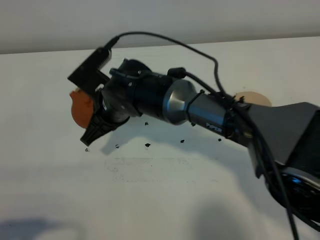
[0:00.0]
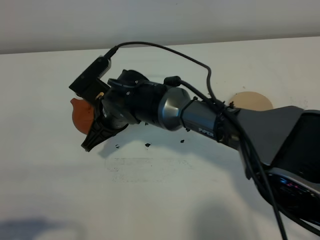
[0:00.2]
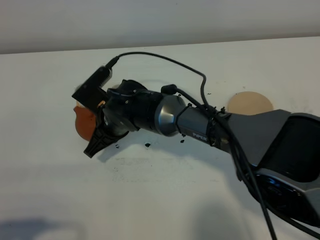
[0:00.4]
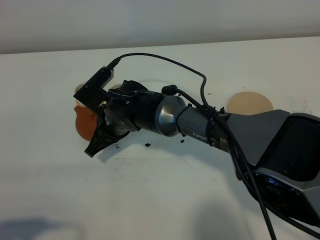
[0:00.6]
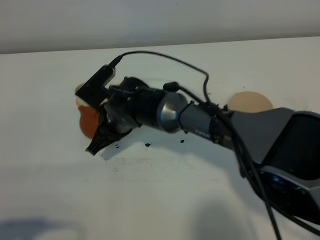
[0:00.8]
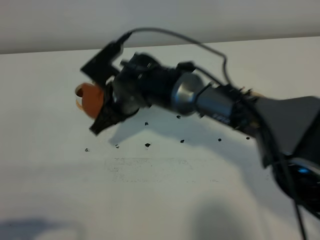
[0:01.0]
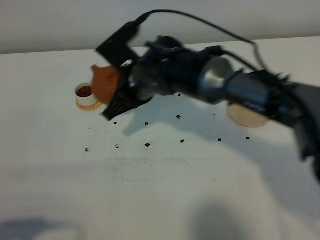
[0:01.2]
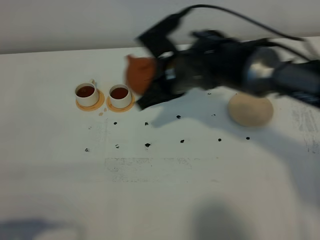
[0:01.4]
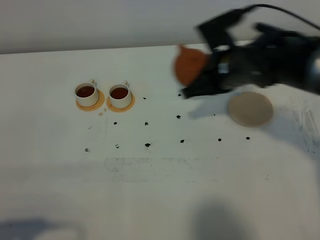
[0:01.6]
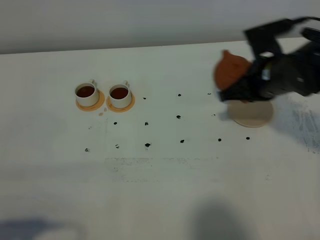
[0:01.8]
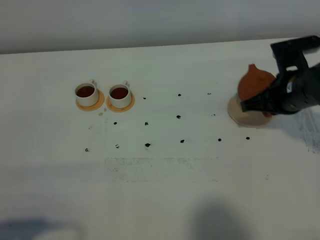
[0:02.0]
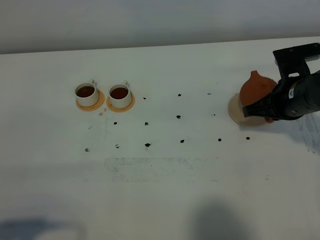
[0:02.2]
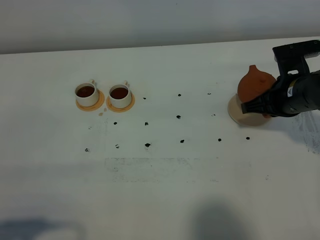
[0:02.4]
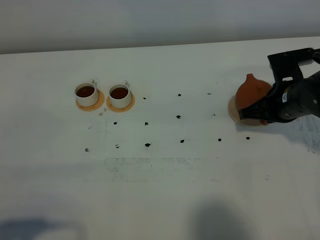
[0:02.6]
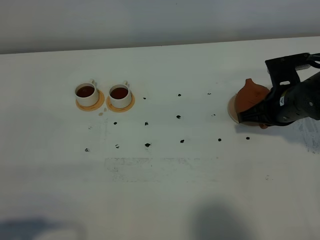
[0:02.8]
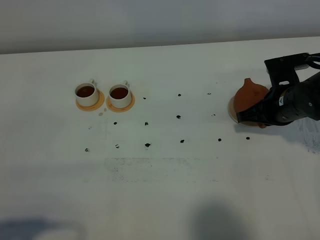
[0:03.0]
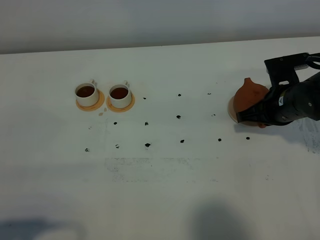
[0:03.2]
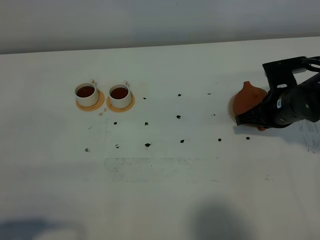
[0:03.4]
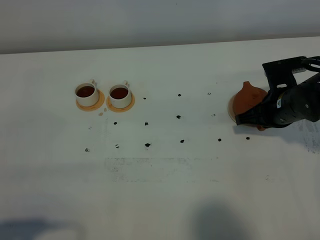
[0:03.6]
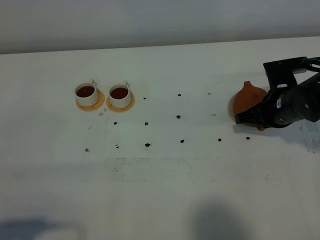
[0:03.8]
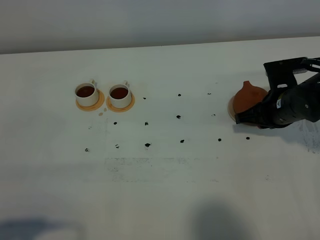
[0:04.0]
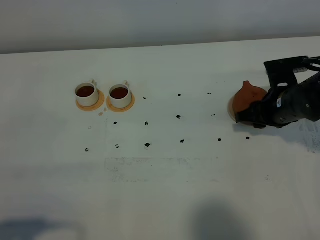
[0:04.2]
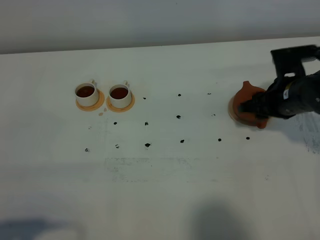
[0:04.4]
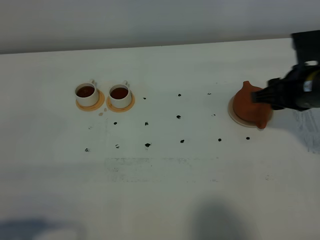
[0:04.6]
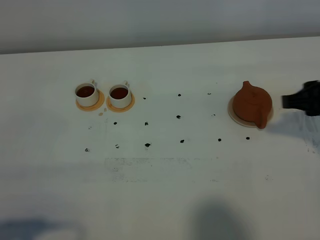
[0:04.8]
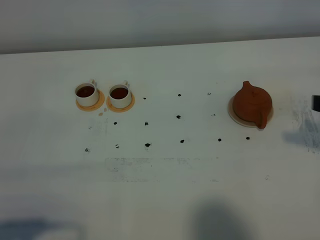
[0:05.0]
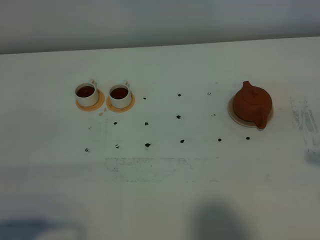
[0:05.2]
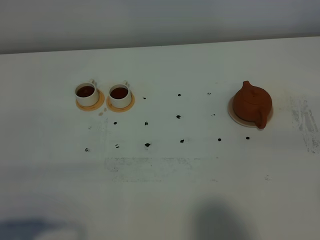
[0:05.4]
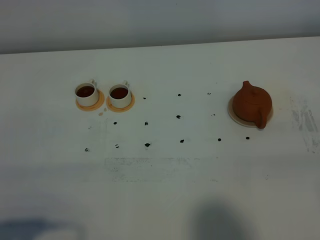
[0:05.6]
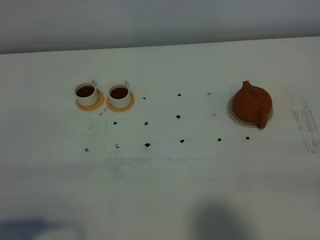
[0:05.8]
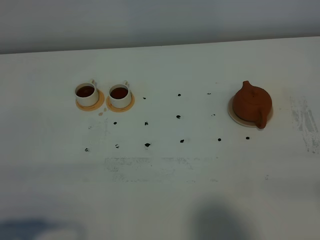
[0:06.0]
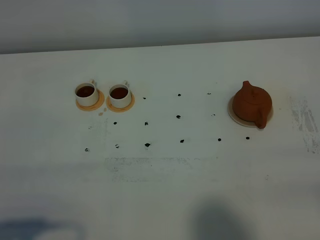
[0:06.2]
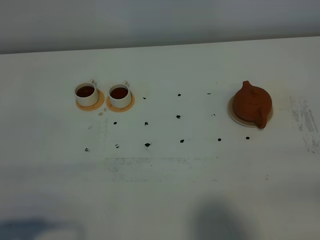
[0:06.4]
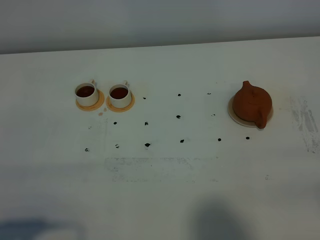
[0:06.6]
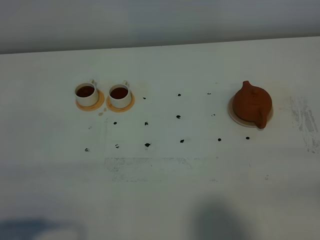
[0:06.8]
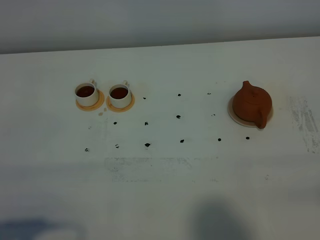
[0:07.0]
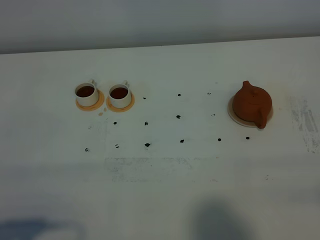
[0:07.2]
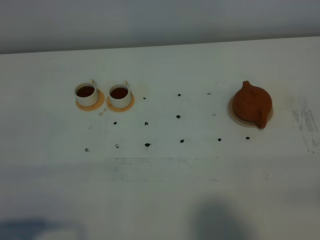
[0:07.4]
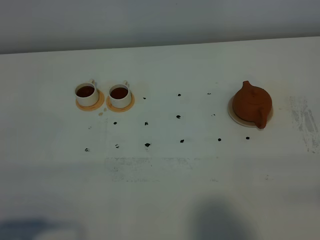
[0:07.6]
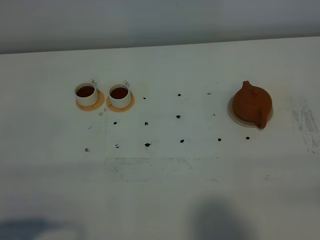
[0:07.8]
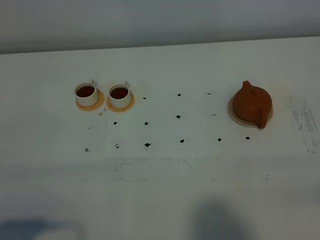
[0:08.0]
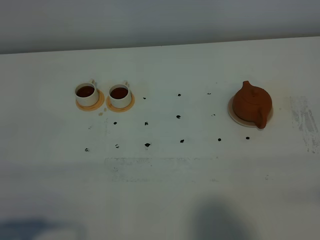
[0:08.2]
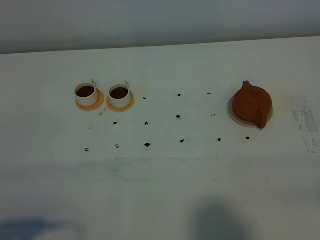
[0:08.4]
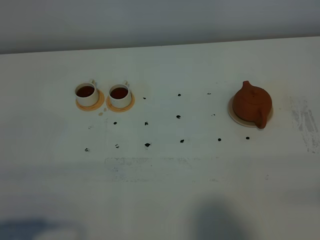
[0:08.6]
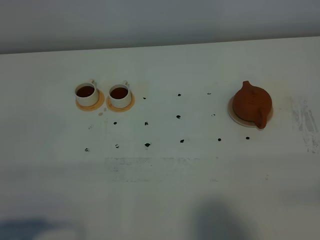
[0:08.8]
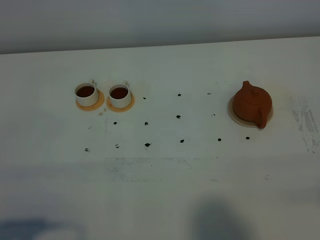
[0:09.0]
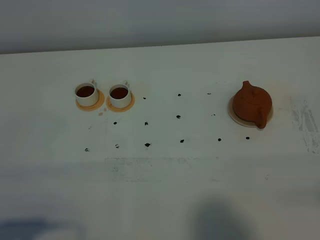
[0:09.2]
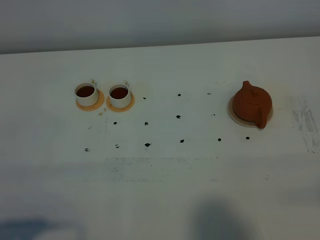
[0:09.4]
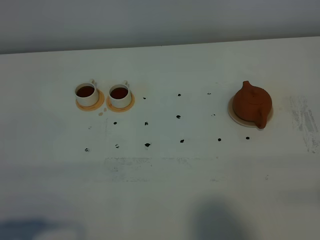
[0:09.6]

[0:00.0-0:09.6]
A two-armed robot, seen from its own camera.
Task of the whole recording: grasp the brown teapot and pour the tea into the two white teacups one by one, put the brown teapot back in its original place.
0:00.0 to 0:01.6: The right gripper travels to the right by roughly 20 cm.
0:01.6 to 0:03.2: The right gripper is displaced to the right and downward by roughly 10 cm.
0:03.2 to 0:04.8: The right gripper travels upward and backward by approximately 15 cm, and opens its fingers.
0:04.8 to 0:06.4: The right gripper heads backward, covering about 25 cm.
0:08.0 to 0:09.6: The two grippers keep their place.

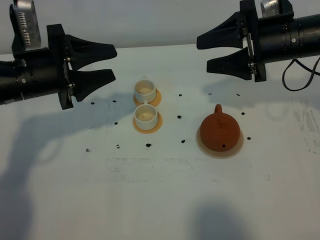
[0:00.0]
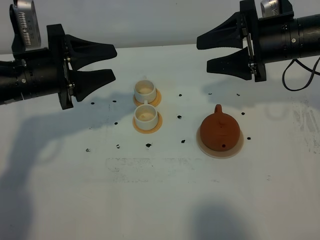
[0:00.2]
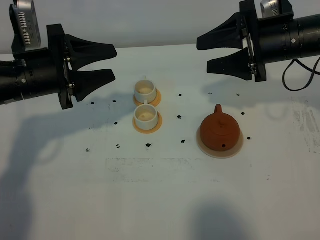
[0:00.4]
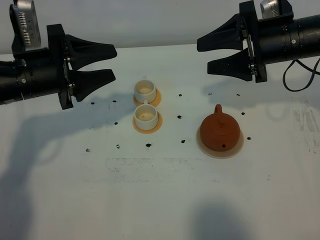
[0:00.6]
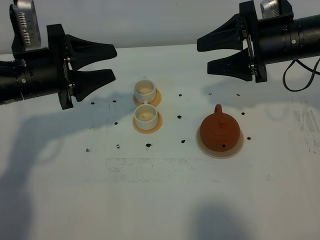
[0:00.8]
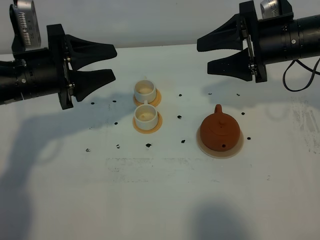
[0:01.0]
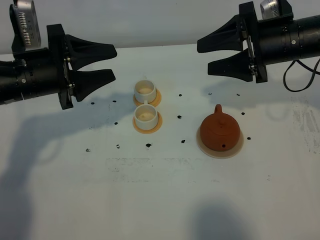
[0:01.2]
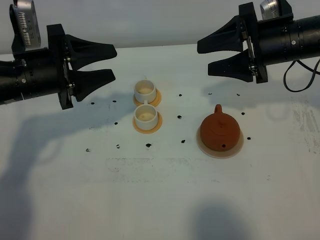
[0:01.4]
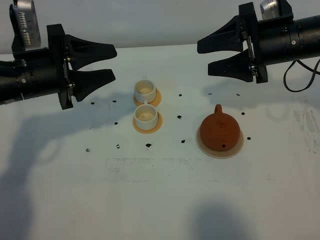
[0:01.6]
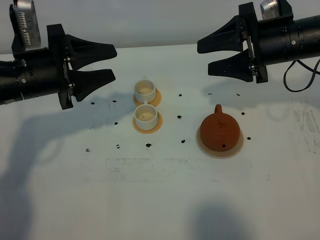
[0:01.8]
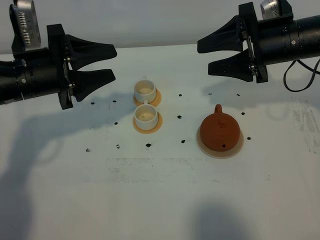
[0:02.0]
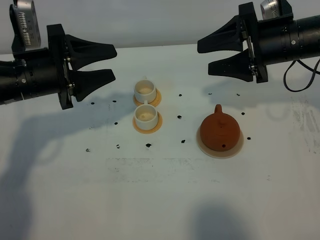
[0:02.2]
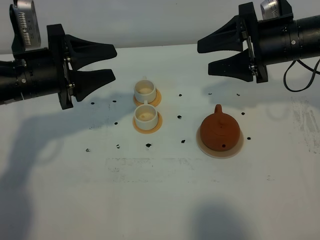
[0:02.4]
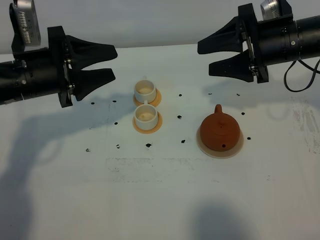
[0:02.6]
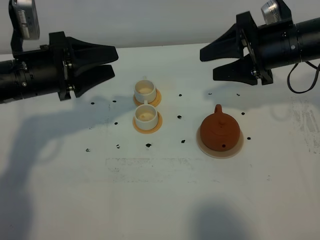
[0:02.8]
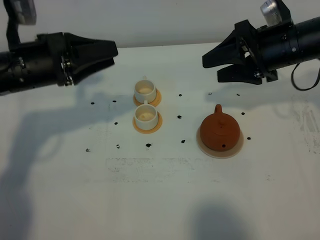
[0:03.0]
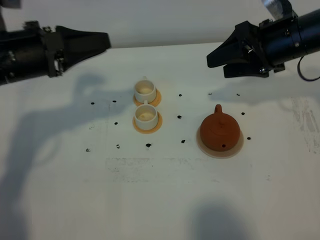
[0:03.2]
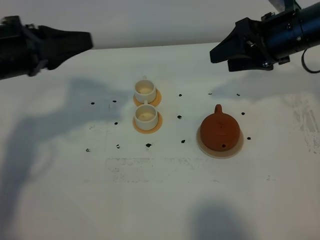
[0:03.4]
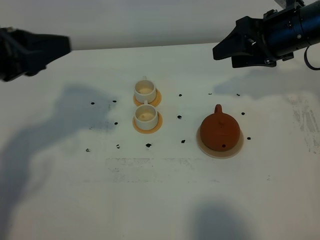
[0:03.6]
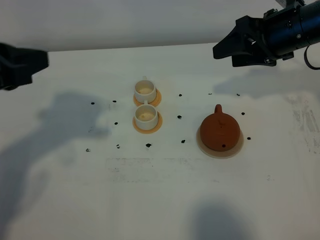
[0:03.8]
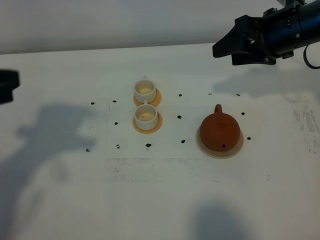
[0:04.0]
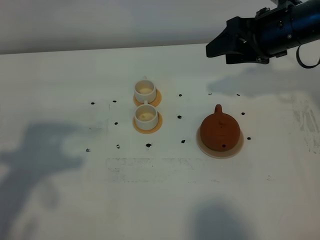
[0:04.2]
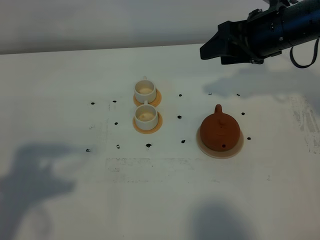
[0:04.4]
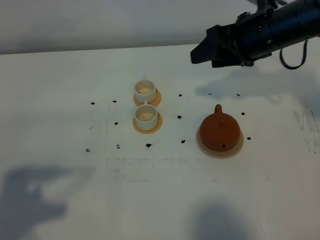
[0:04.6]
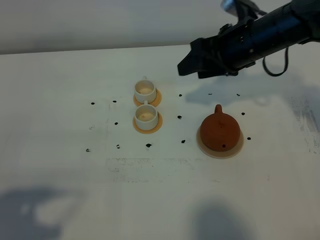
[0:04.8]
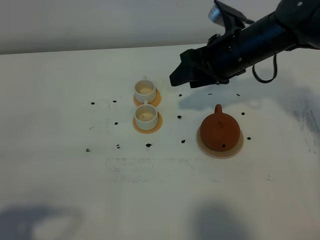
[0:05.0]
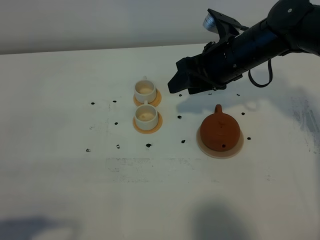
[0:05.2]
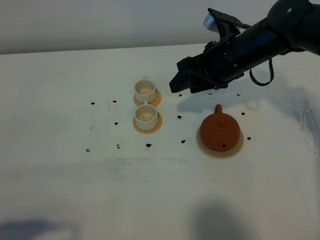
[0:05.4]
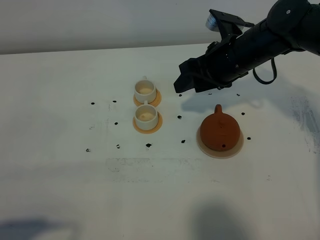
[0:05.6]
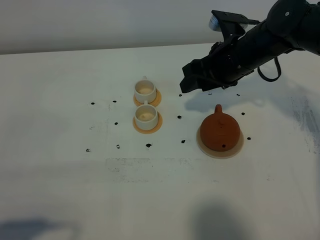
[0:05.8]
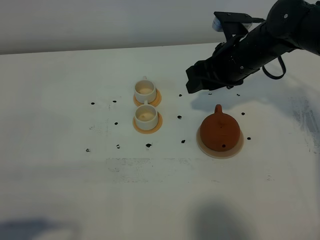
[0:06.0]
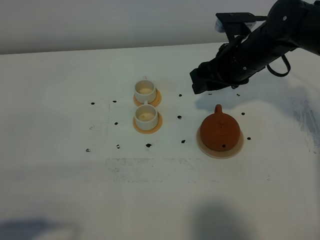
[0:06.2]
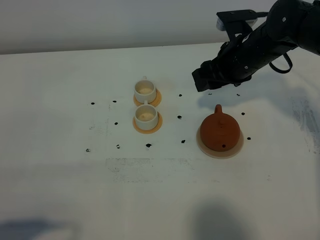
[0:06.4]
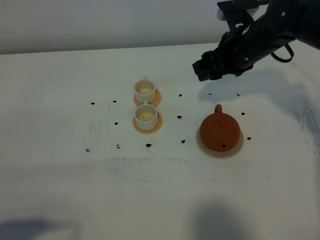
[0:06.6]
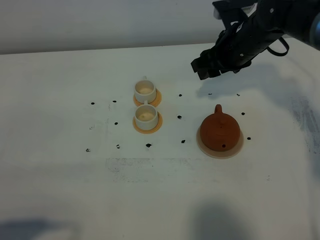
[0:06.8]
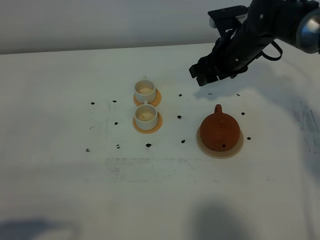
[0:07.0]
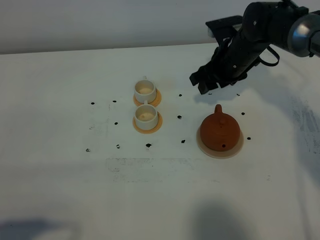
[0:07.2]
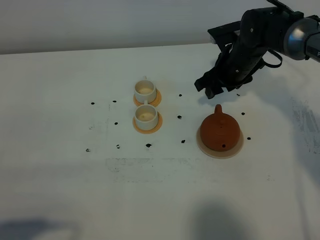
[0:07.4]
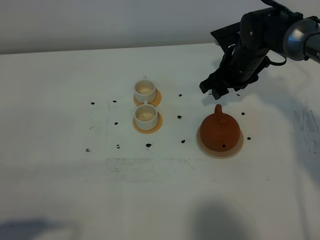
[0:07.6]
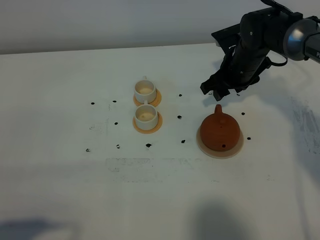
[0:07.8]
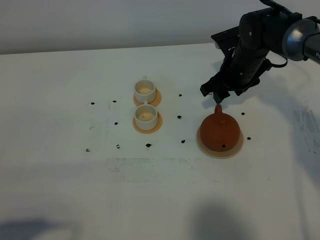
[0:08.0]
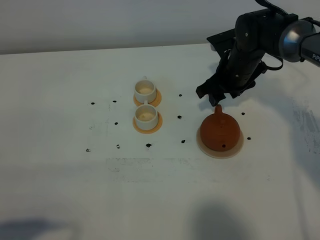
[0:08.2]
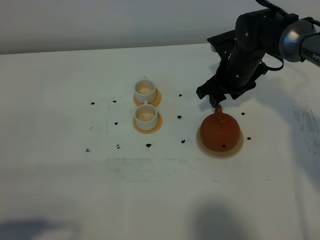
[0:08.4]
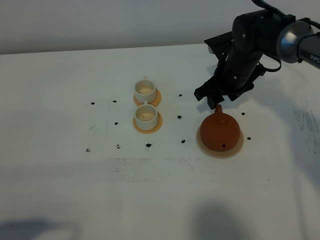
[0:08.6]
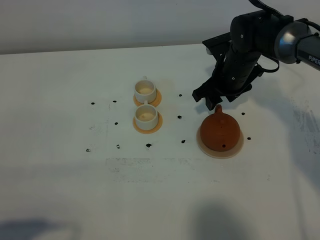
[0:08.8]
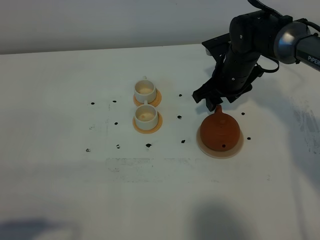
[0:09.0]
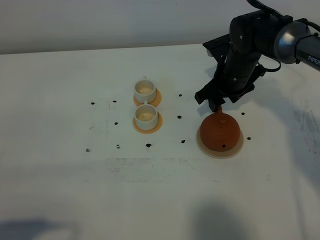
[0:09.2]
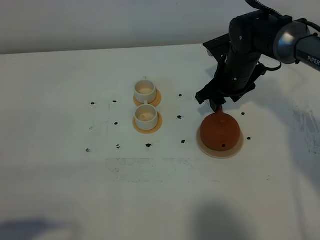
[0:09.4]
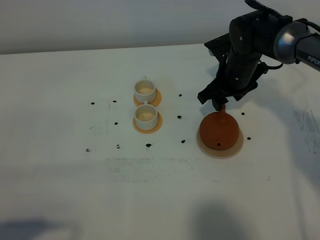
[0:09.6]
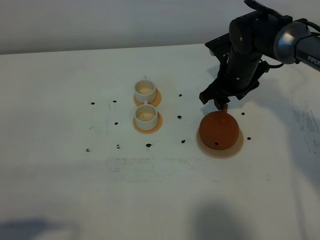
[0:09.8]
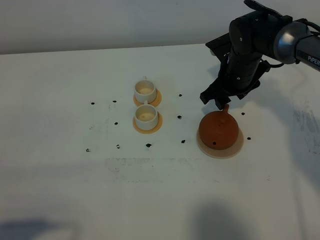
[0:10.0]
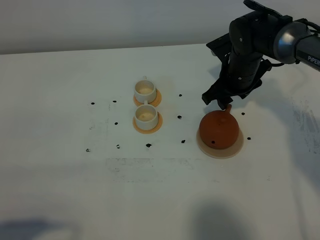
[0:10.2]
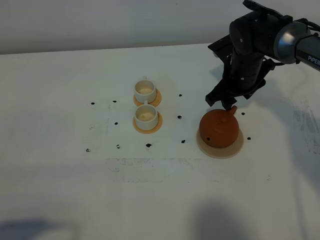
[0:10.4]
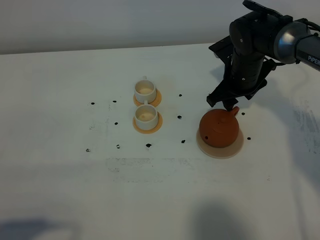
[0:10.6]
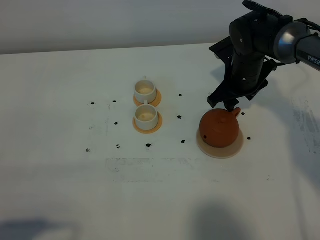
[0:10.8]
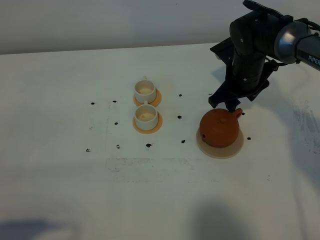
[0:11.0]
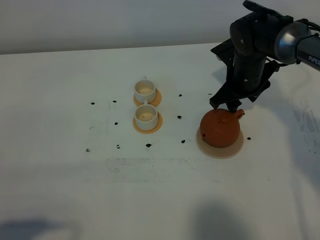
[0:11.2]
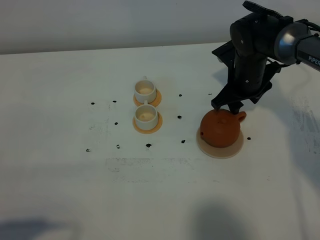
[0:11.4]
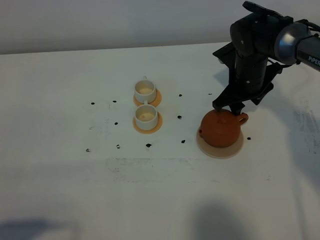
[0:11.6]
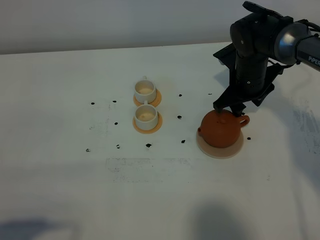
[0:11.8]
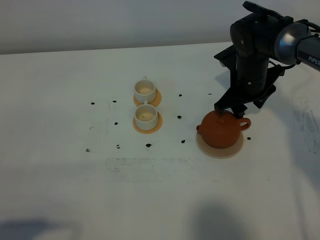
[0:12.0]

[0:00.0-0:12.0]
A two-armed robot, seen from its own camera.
Task of the whole recording: grasp the brown teapot and pour the tea into the two white teacups one by one, put the brown teapot back in its original place.
0:00.0 to 0:01.6: Both grippers stay put.
0:01.6 to 0:03.0: The left gripper closes up.
0:03.0 to 0:04.4: The left gripper goes some 20 cm backward, and closes up.
0:04.4 to 0:06.0: The left gripper moves backward and downward, some 15 cm. The right gripper shifts about 5 cm downward.
0:06.0 to 0:07.6: The right gripper heads downward and forward, covering about 10 cm.
0:07.6 to 0:10.4: The grippers stay close to where they were, moving slightly.
0:10.4 to 0:12.0: The grippers move only a little.

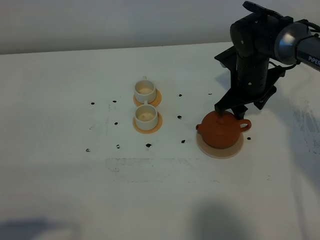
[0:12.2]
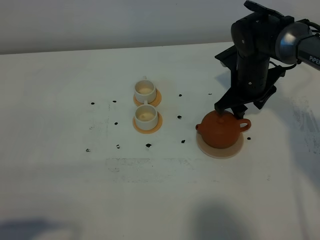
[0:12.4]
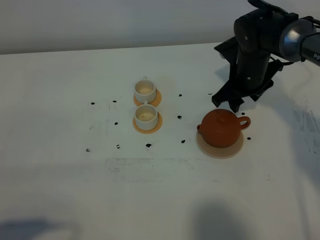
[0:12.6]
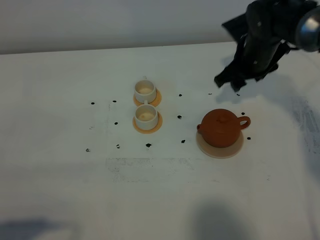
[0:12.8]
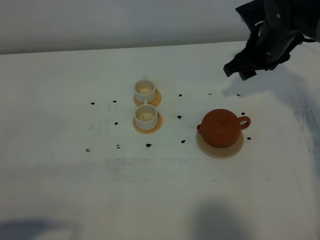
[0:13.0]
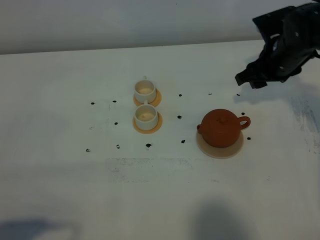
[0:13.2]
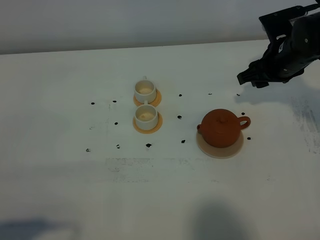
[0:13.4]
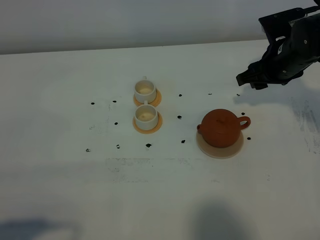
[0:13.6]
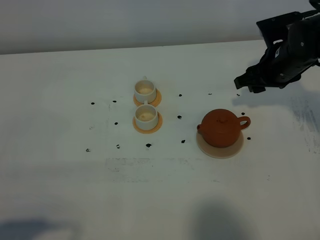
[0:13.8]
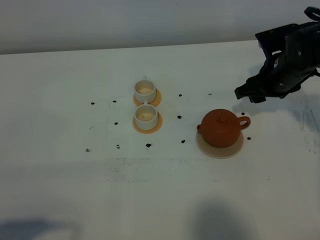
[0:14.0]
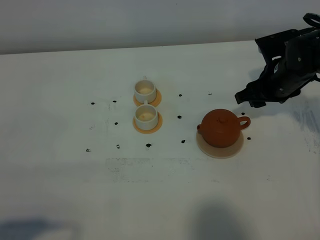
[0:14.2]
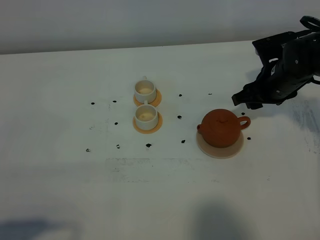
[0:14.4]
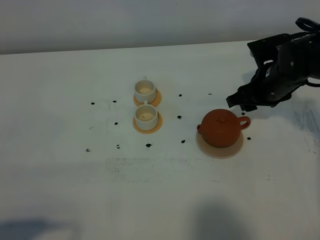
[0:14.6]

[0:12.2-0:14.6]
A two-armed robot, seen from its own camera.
Task of the whole recording: grasp the brown teapot and pour the tea into the two white teacups one by one, put the brown teapot back in its original place.
0:12.2 to 0:13.4: The right gripper is displaced to the right by about 5 cm.
0:13.4 to 0:14.6: The grippers make only small movements.
